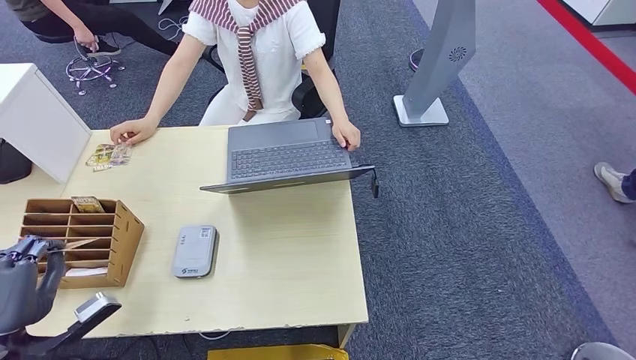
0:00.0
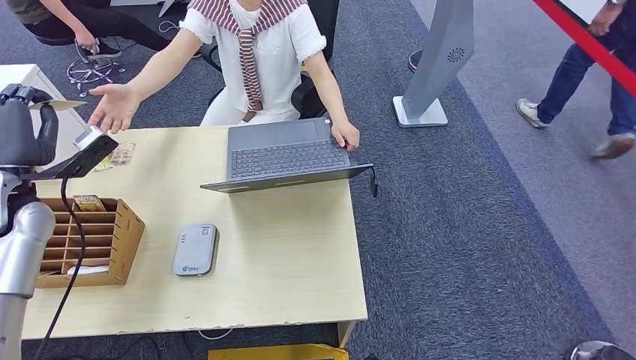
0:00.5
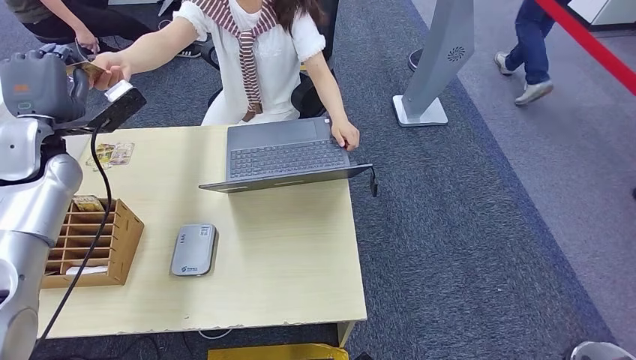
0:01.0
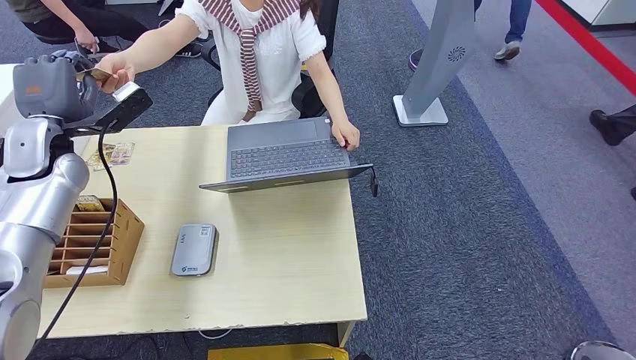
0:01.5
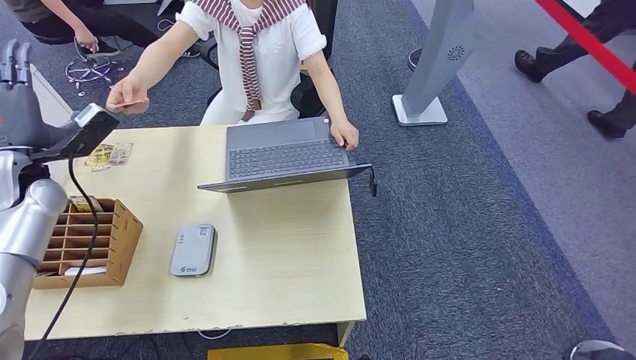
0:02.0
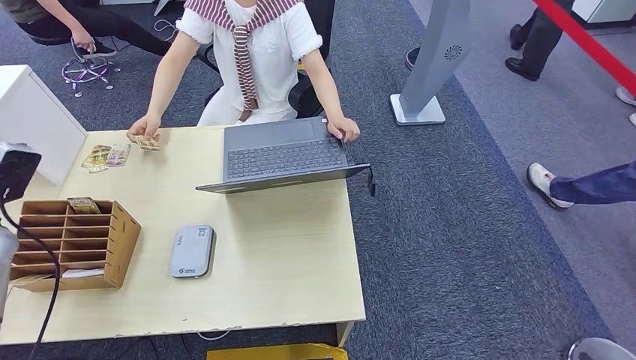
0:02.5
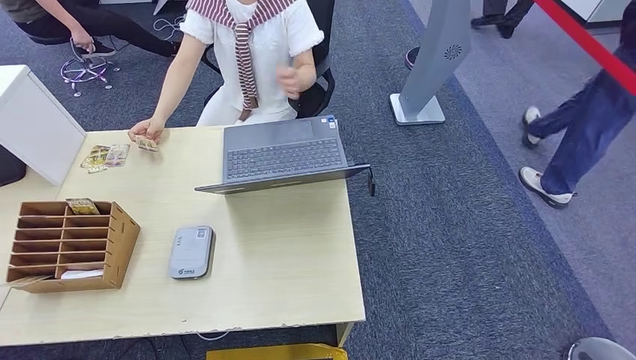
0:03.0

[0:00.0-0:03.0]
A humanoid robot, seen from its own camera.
Step, 0:01.0 to 0:03.0: Hand the room key to the person.
